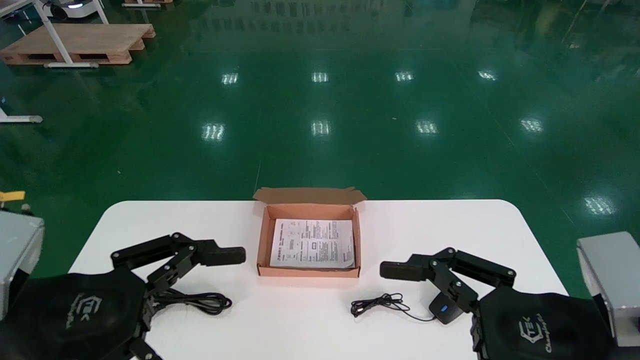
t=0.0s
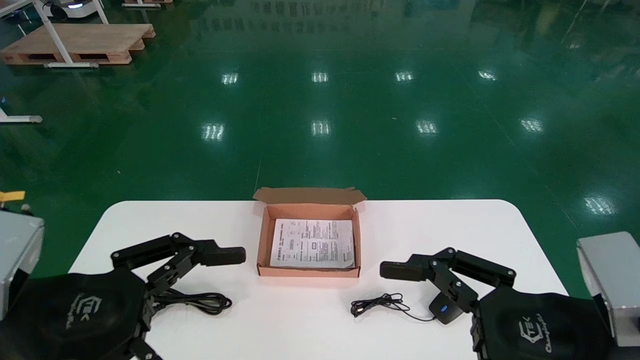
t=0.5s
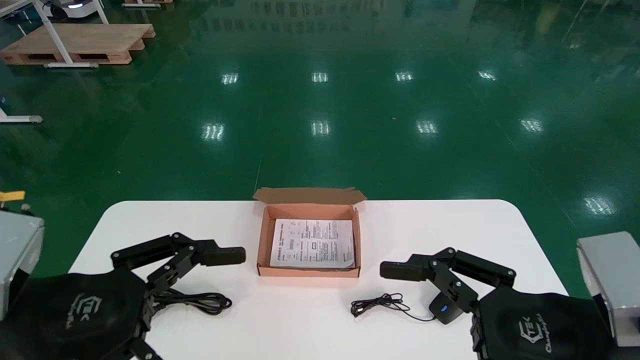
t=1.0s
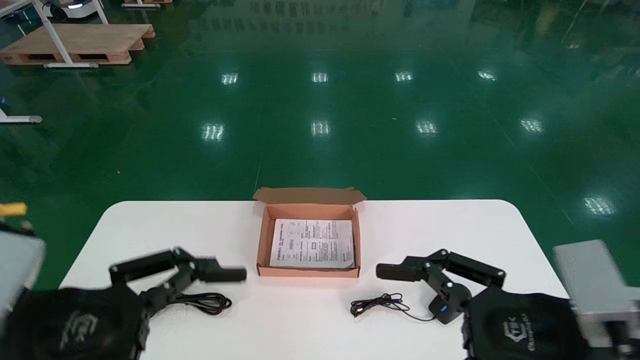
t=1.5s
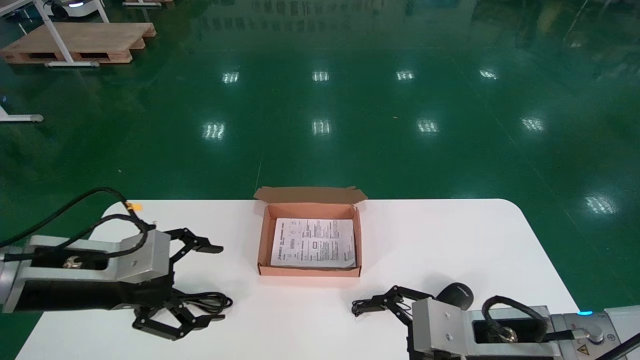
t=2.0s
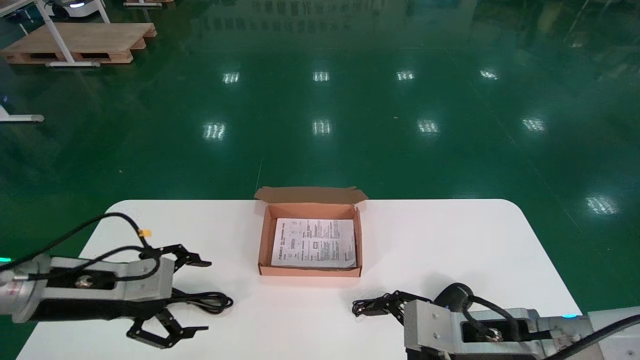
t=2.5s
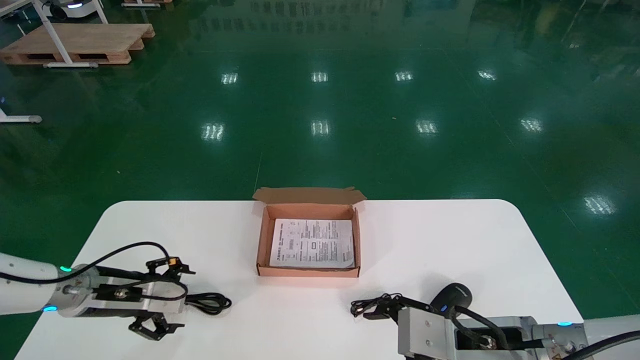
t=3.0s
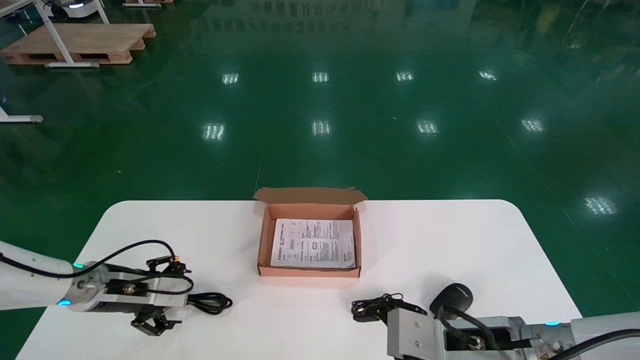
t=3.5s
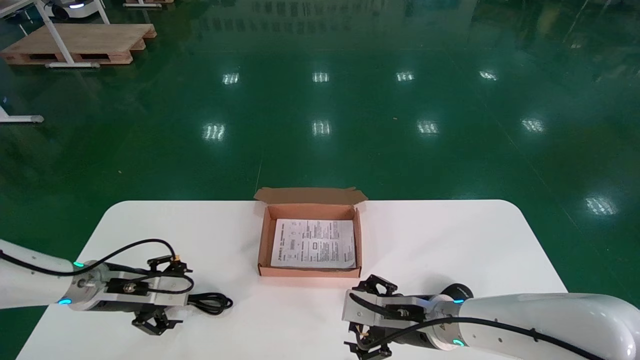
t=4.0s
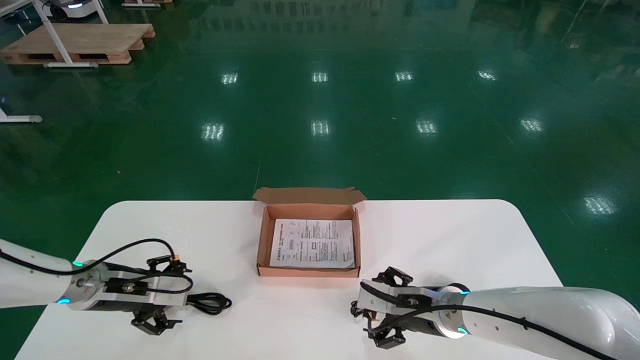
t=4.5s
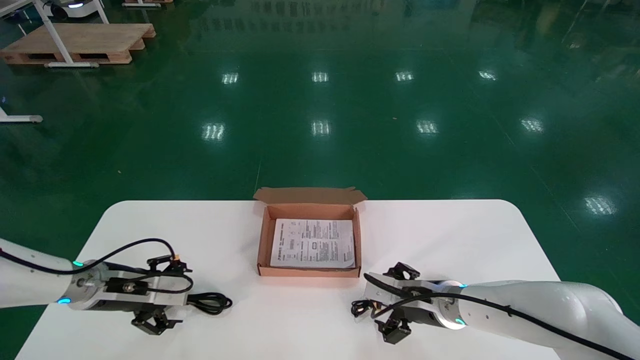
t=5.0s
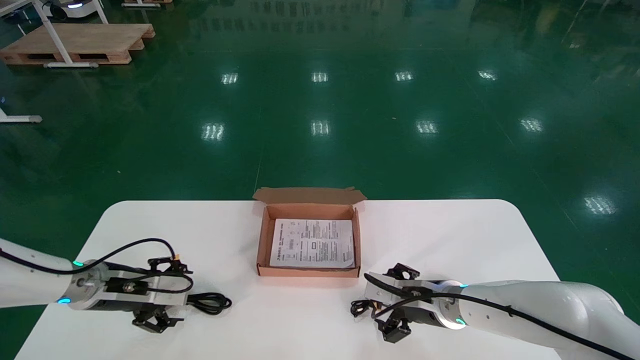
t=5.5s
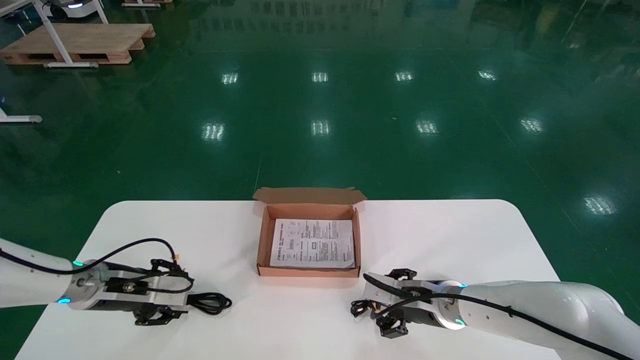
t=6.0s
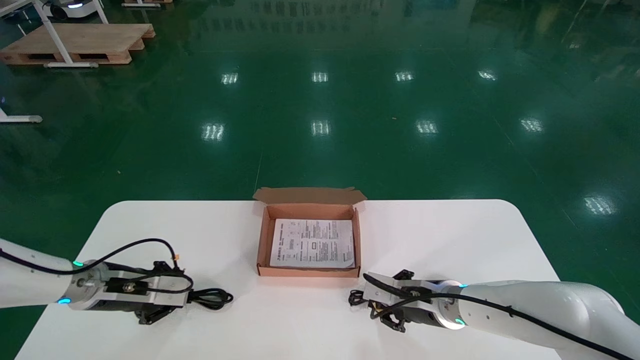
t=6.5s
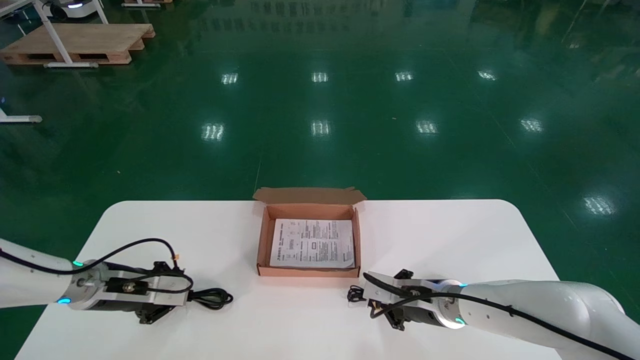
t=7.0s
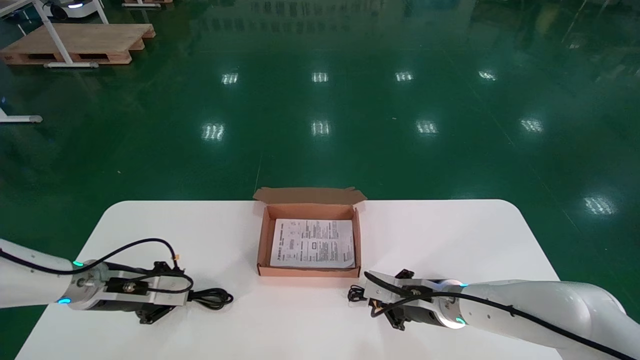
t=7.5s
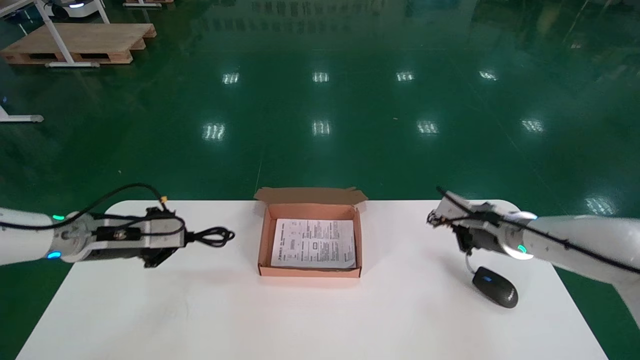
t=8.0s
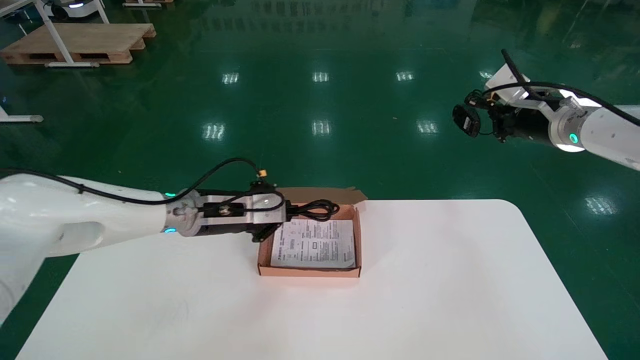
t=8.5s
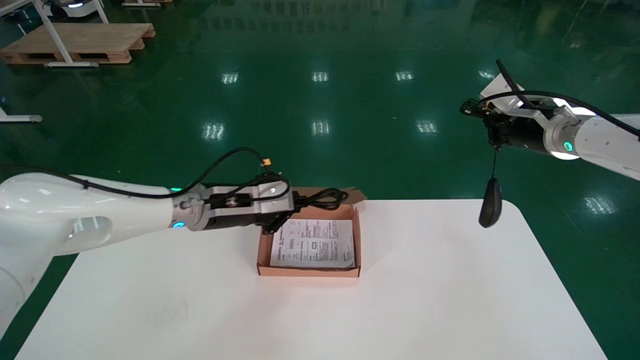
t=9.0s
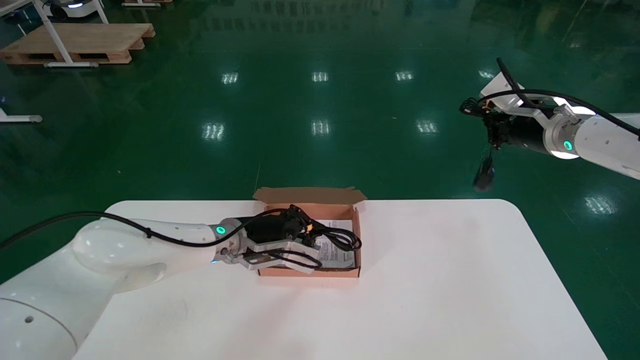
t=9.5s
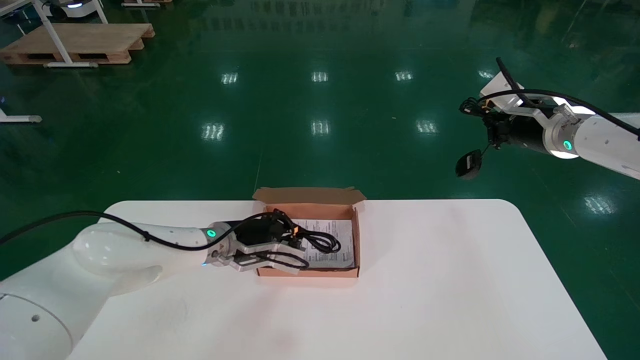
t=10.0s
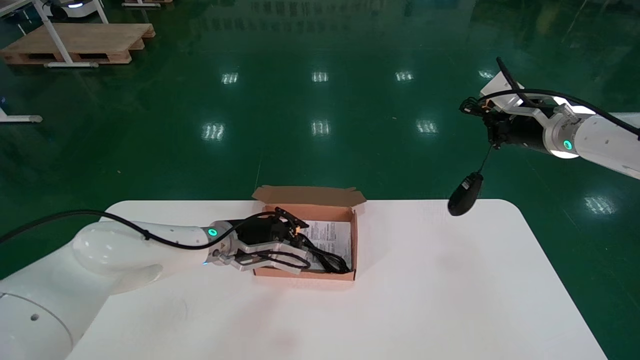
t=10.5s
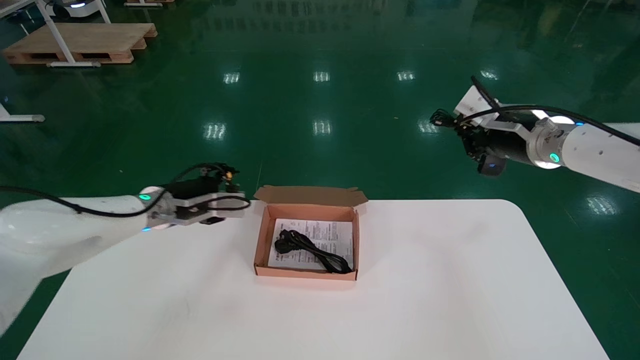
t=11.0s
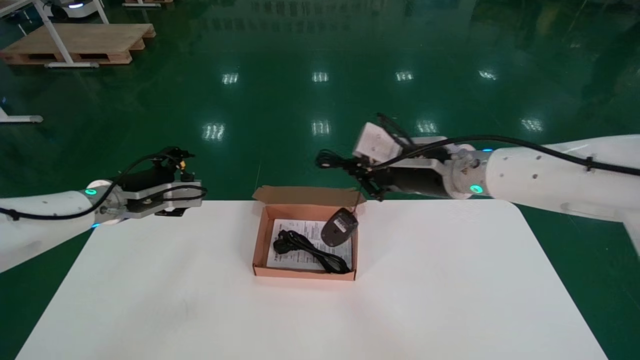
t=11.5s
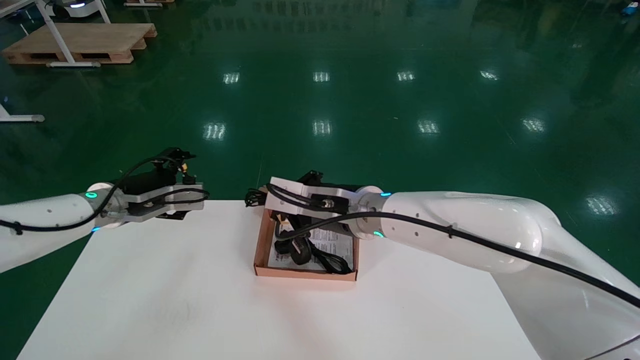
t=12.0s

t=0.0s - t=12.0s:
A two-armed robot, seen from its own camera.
Step, t=1.5s - t=8.0s: Simultaneously pick up the mouse and power cord from the accessory packaging area.
t=0.0s - t=2.0s: The left gripper moves forward, roughly 10 cm. The right gripper goes some 10 cm forward and downward.
t=2.0s - t=4.0s: The left gripper is displaced forward and downward by some 15 cm. The right gripper shifts roughly 15 cm forward, downward and to the left.
t=4.0s - t=6.0s: The right gripper travels forward by about 5 cm, while the left gripper closes.
t=6.0s - t=8.0s: The right gripper travels upward and to the right by approximately 15 cm, and closes its fingers, while the left gripper heads upward, covering about 5 cm, and closes up.
t=8.0s - t=10.0s: The right gripper goes about 15 cm upward, while the left gripper travels to the right by about 20 cm.
t=10.0s - t=12.0s: The right gripper goes about 30 cm to the left. The left gripper shifts about 20 cm to the left and upward, and opens its fingers.

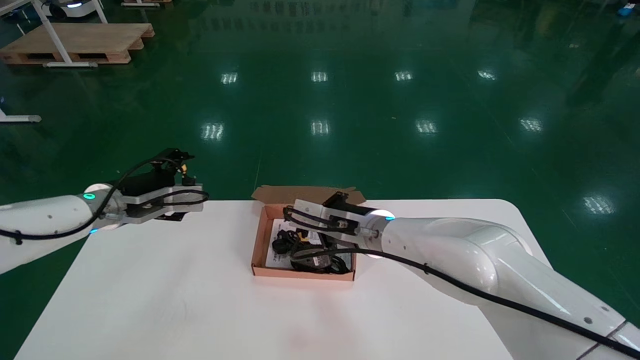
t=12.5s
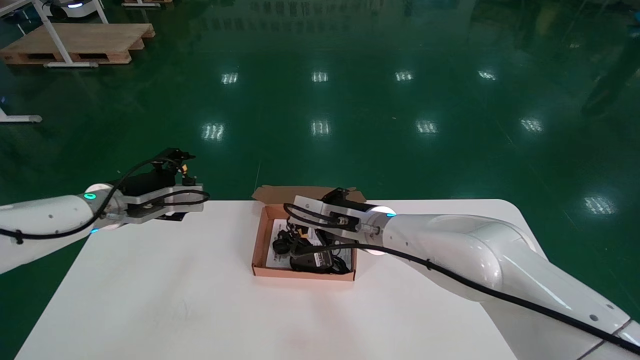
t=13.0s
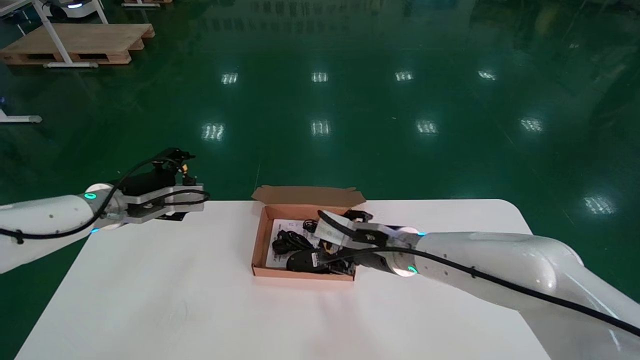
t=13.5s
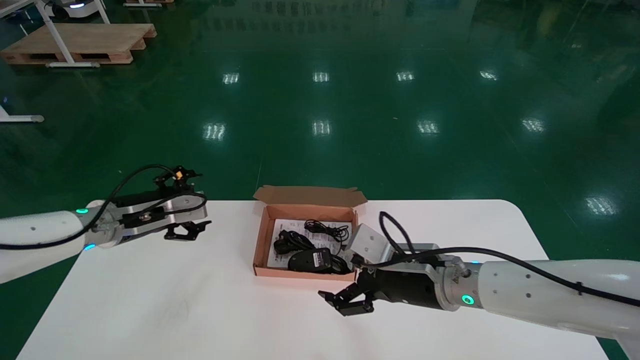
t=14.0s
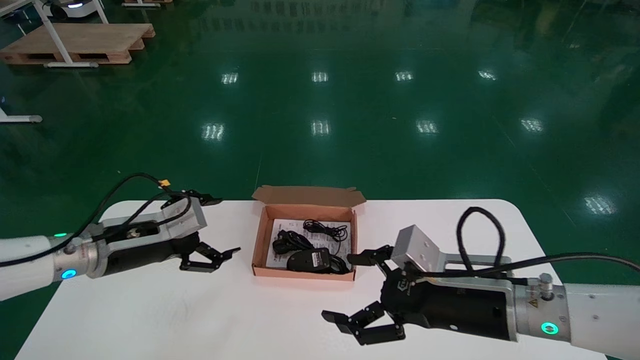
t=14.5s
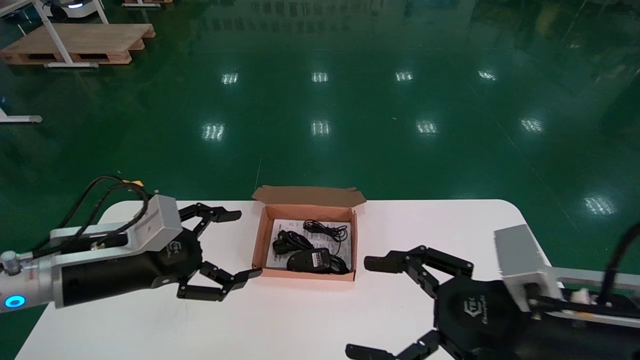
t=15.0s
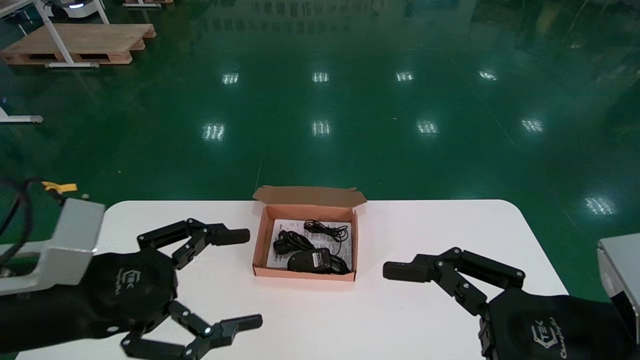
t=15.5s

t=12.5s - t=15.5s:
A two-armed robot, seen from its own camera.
t=12.5s - t=14.0s: The right gripper is displaced to the right, backward and downward by roughly 10 cm, and opens up.
t=14.0s - t=15.5s: The left gripper is displaced backward by roughly 20 cm; the right gripper is displaced backward and to the right by some 25 cm.
